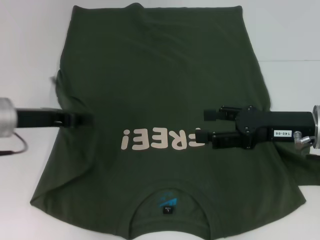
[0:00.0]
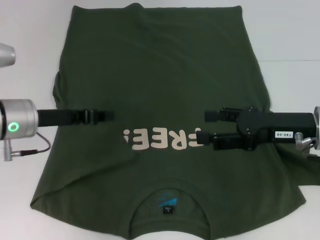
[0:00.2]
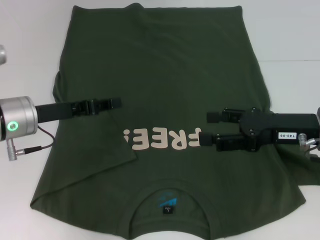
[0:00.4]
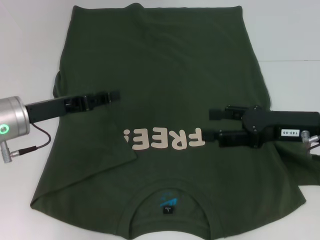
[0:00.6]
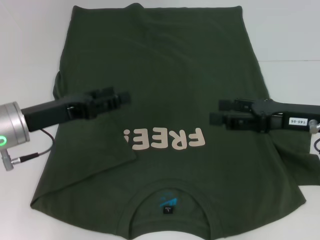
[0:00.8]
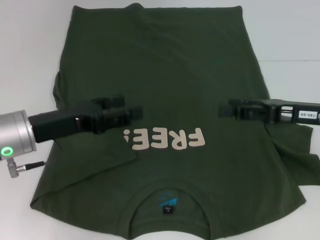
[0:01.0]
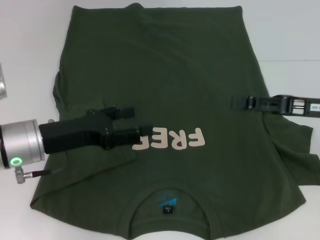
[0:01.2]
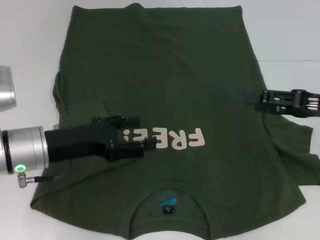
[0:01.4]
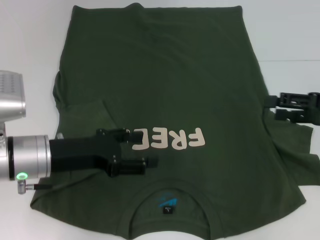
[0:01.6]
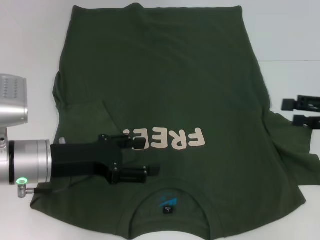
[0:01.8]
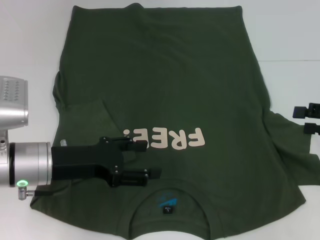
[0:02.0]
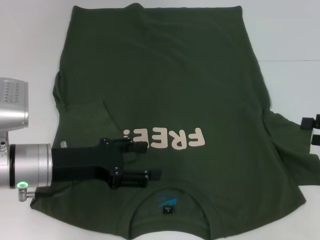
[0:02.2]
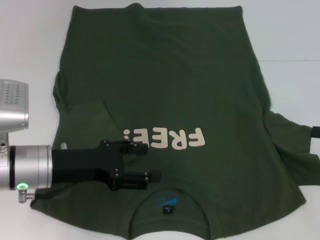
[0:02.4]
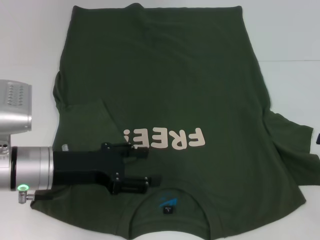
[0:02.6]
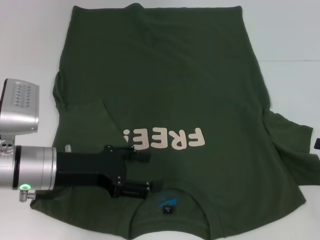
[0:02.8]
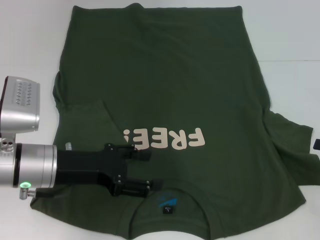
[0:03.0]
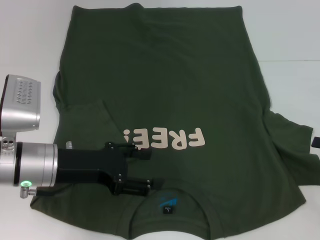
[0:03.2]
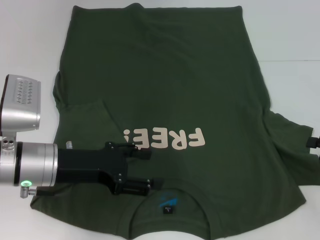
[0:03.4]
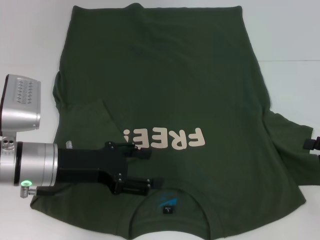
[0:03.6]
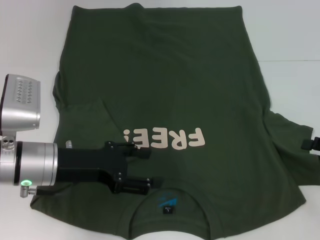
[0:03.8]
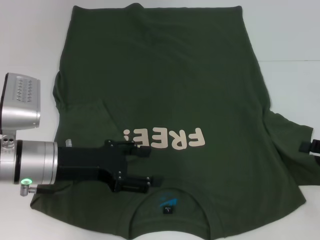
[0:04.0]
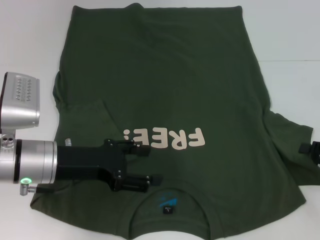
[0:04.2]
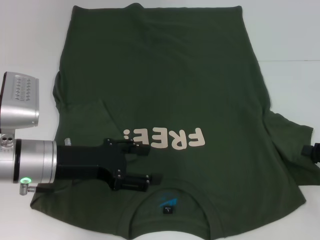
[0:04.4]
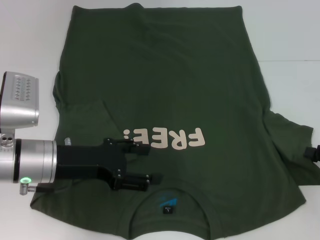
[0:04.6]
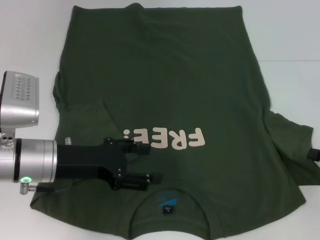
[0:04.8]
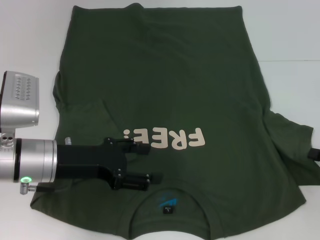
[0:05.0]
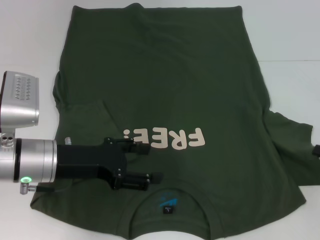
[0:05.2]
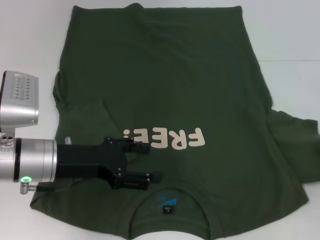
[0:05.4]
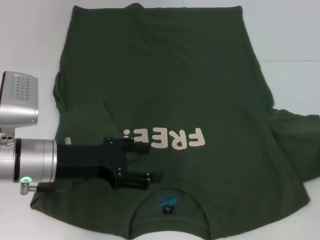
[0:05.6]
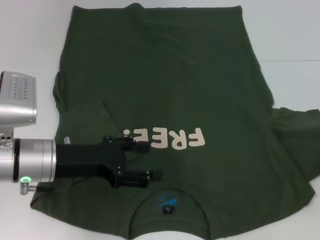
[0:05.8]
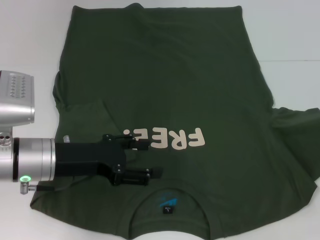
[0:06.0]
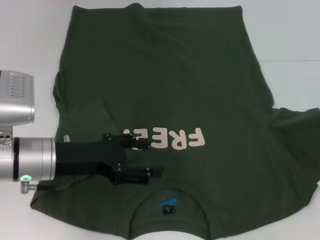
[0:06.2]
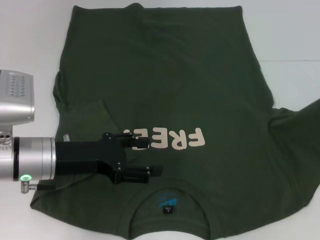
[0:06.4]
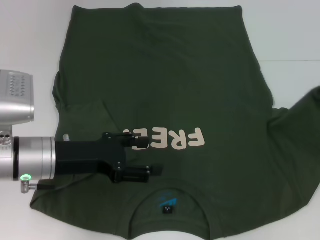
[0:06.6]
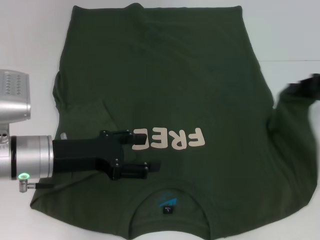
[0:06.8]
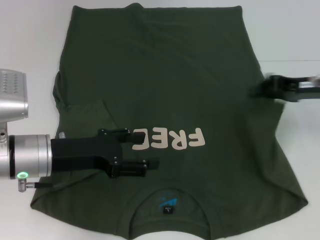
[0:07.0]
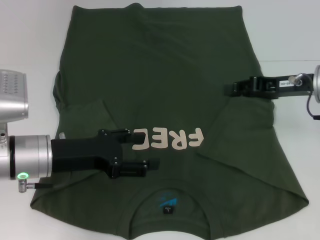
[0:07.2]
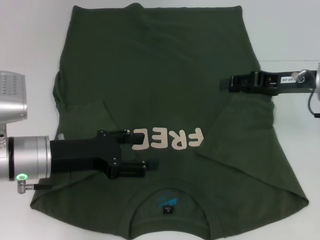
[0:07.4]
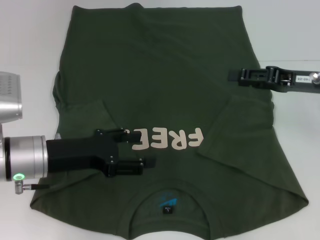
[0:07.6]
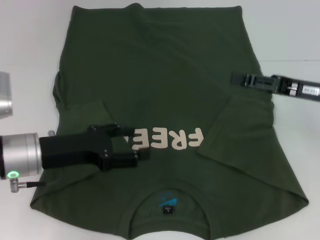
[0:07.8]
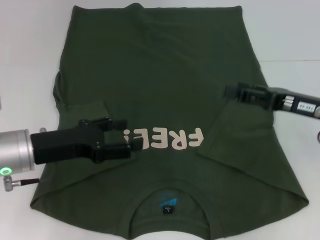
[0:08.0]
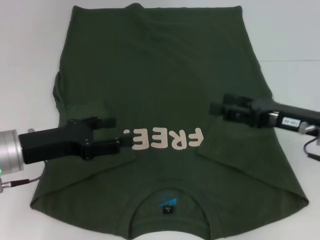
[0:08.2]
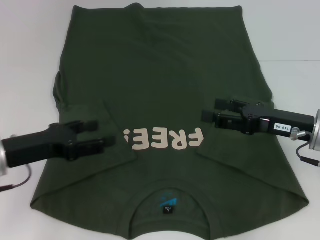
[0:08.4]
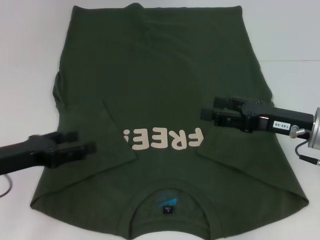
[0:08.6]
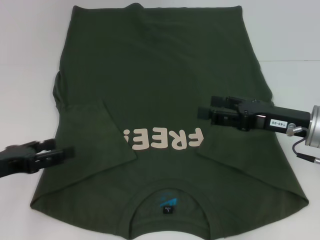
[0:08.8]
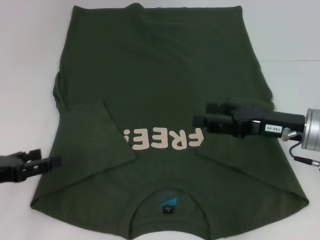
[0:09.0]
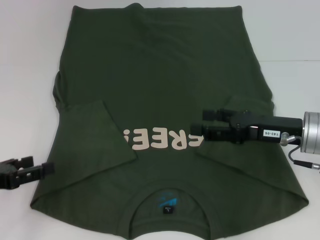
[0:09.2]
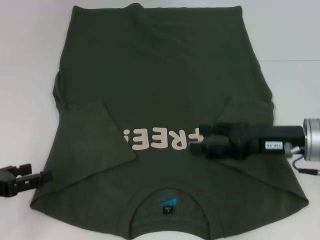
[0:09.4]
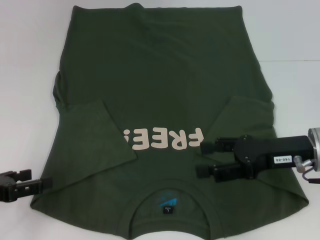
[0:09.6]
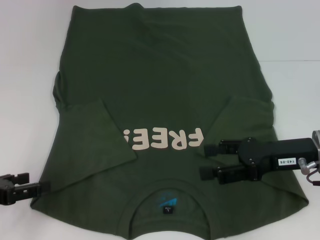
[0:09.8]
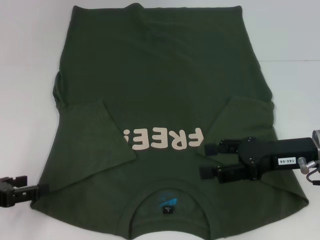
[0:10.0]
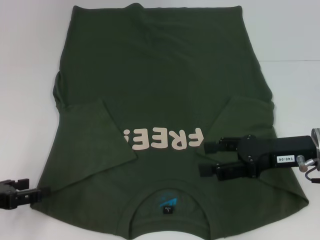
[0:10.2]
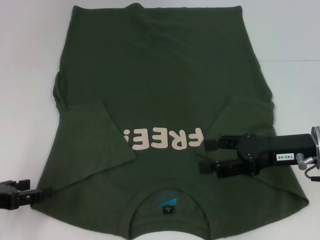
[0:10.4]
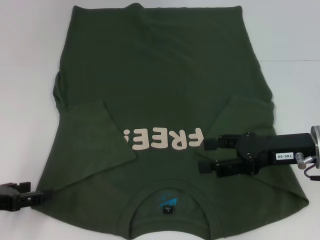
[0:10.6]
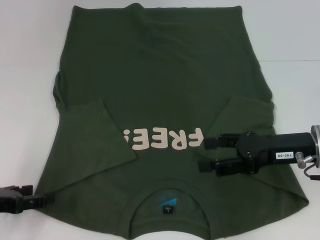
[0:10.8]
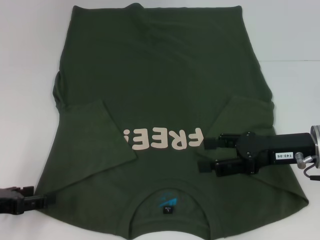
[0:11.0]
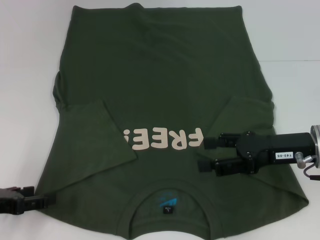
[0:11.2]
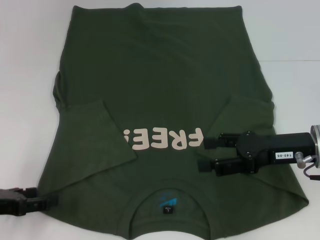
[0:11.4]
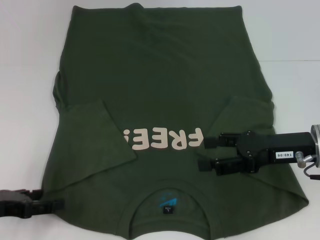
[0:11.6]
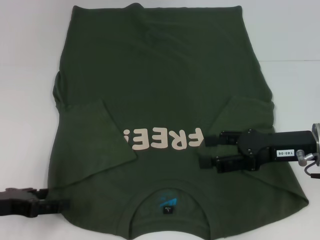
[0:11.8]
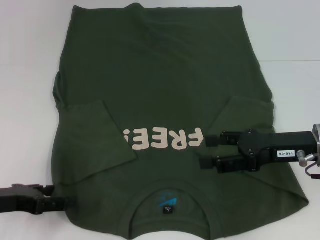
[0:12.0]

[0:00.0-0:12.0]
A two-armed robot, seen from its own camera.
Step, 0:00.4 to 0:07.0: Fold the bottom right sleeve with your right hand.
0:00.0 to 0:01.6: The right gripper heads to the right, covering approximately 10 cm; the left gripper shifts by about 5 cm, and opens up.
0:01.6 to 0:03.0: The right gripper goes approximately 10 cm to the right, backward and downward.
0:03.0 to 0:04.4: The right gripper closes its fingers.
0:04.4 to 0:06.0: The right gripper ends up approximately 5 cm from where it was, and closes up.
0:06.0 to 0:07.6: The right gripper goes approximately 15 cm to the left and forward, and opens.
0:07.6 to 0:09.0: The right gripper changes place by about 10 cm, and opens. Meanwhile the left gripper is displaced to the left and backward by roughly 15 cm.
0:09.0 to 0:12.0: The grippers stay close to where they were, moving slightly.

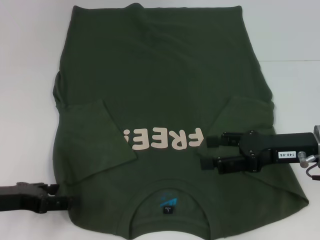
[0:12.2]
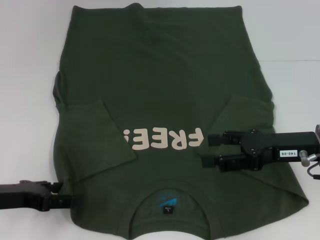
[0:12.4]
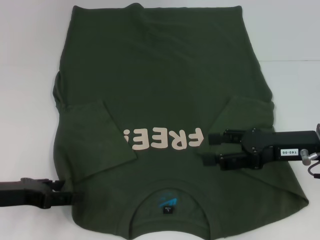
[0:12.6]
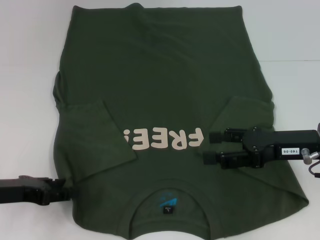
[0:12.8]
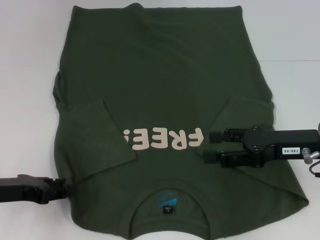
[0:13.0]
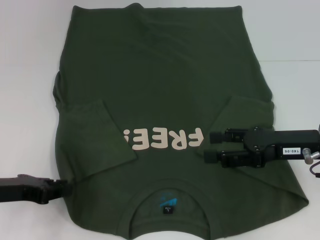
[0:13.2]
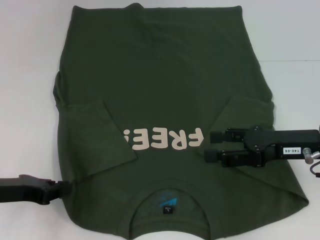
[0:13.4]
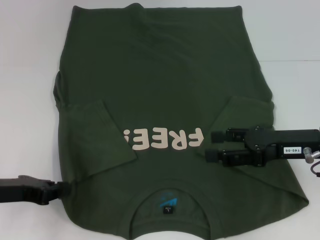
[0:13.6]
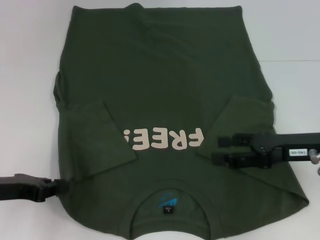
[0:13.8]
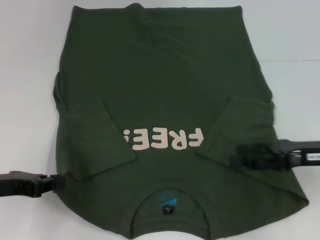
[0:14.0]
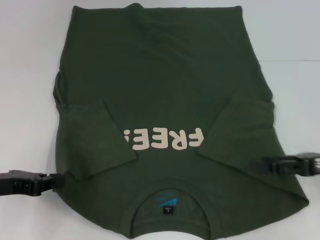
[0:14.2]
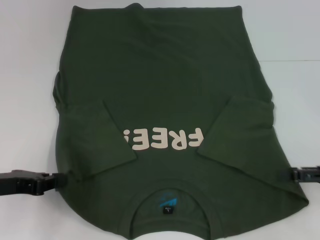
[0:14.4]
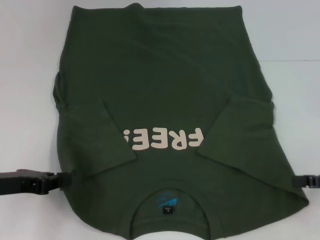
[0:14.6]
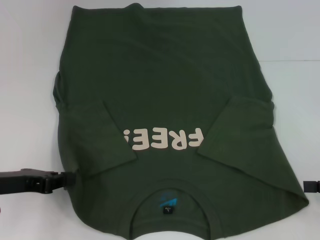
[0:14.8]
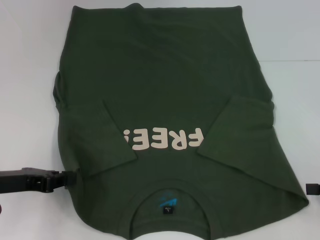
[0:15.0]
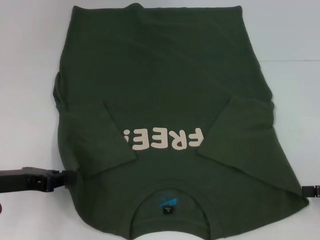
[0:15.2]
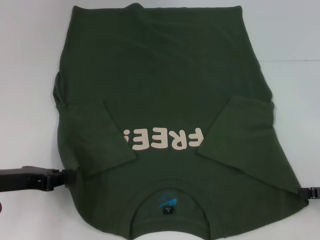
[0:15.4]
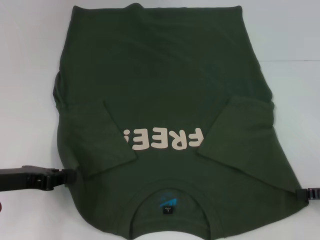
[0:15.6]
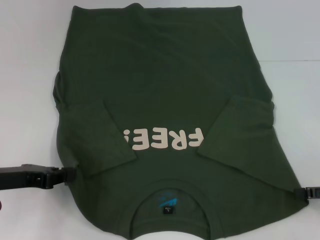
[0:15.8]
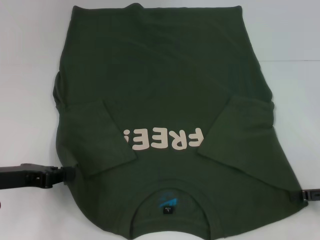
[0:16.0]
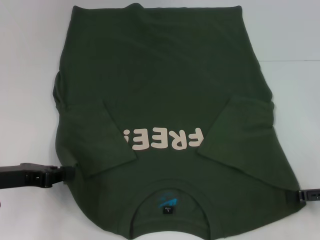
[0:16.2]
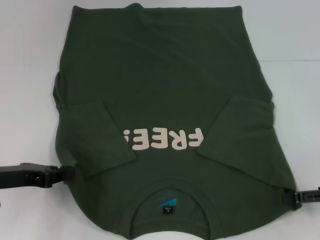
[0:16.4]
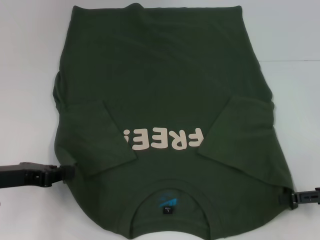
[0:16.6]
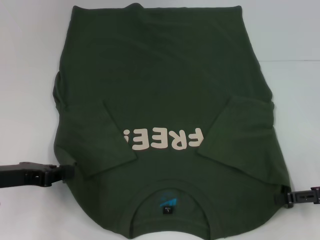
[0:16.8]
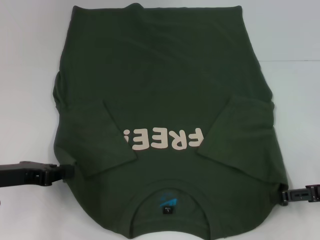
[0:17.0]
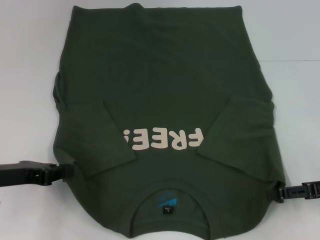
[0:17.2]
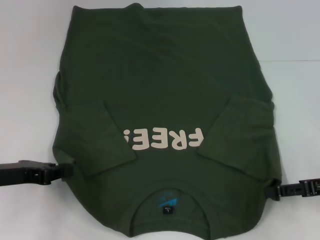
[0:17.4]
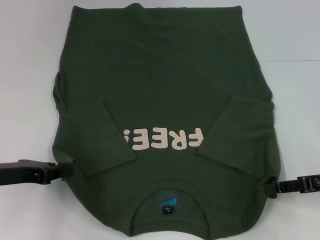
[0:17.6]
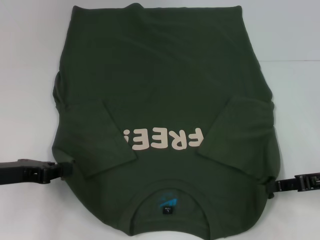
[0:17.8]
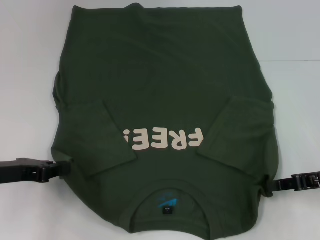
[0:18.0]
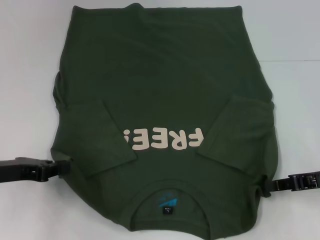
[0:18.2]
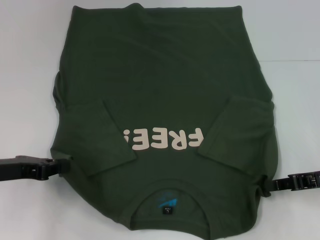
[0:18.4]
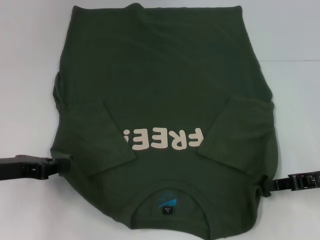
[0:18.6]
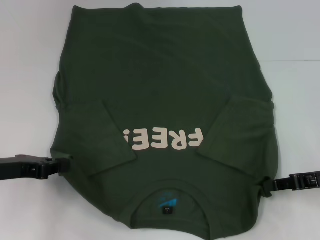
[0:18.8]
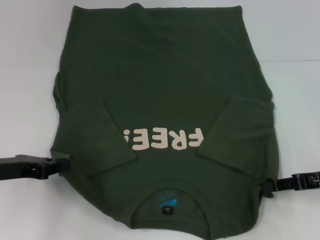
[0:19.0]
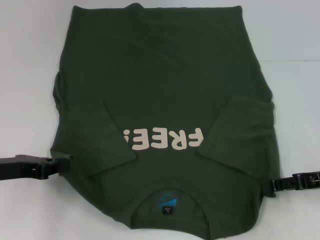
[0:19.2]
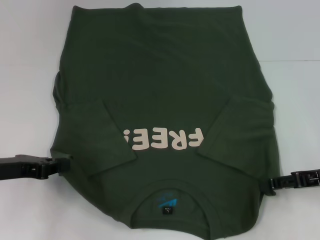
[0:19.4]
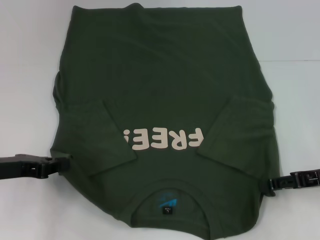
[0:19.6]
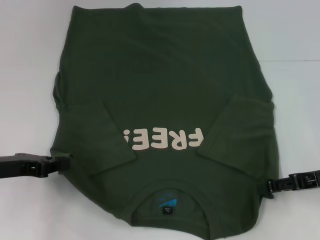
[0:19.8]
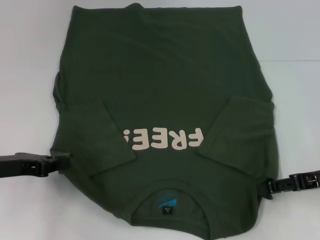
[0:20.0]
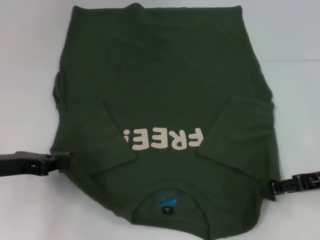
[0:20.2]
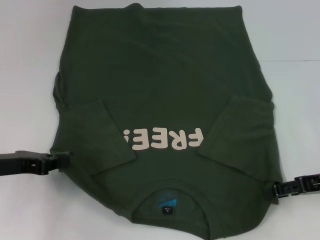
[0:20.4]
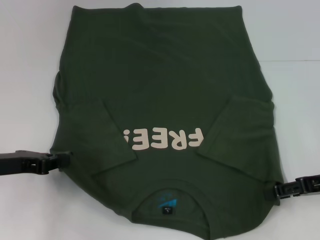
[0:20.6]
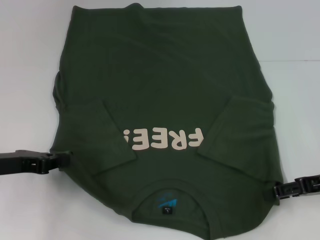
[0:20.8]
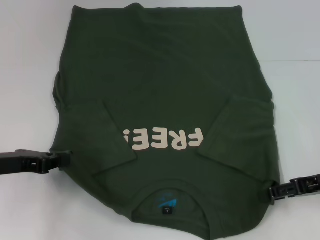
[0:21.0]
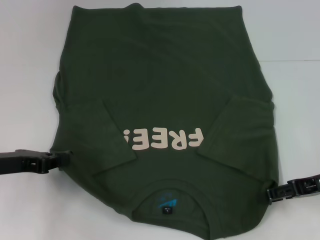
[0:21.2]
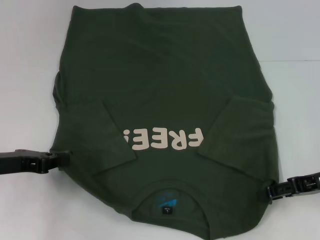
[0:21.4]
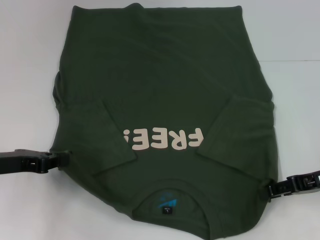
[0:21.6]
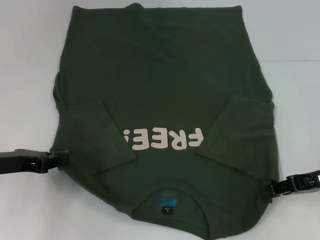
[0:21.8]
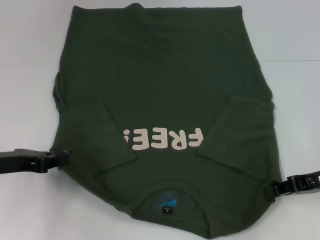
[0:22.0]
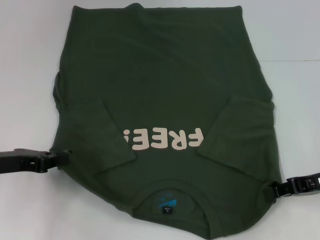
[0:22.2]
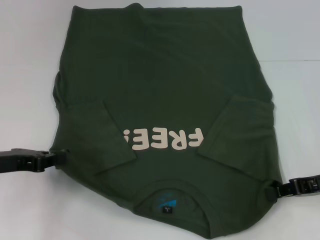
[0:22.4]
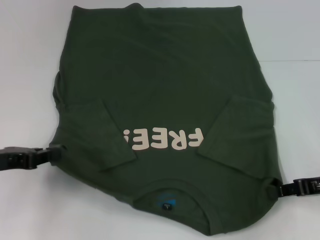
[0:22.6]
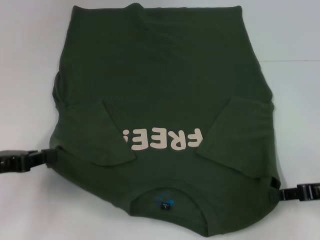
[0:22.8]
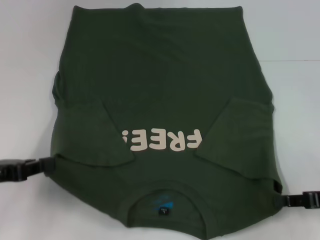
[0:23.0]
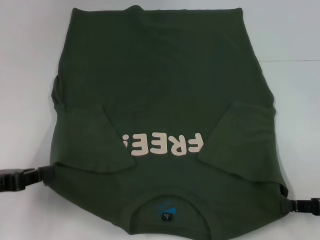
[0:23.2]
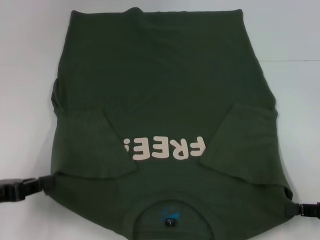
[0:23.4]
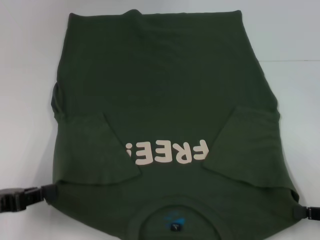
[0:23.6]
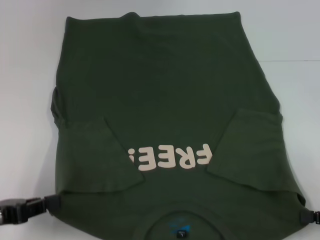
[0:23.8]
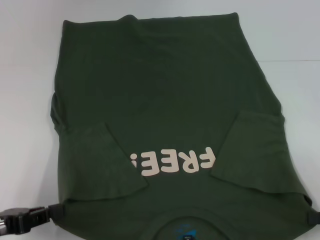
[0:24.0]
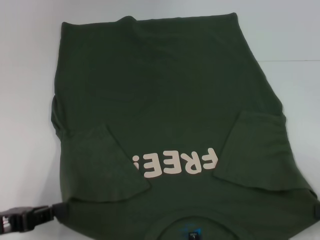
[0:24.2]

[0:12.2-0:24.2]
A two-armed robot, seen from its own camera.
Step, 0:14.0 to 0:22.6: Grab the bottom right corner with your right hand.
0:12.2 to 0:13.8: The left gripper closes its fingers.
0:13.8 to 0:15.2: The right gripper heads to the right and backward, covering approximately 15 cm.
0:15.2 to 0:16.6: The grippers stay close to where they were, moving slightly.
0:16.6 to 0:18.2: The right gripper closes.
0:18.2 to 0:19.8: The right gripper opens up.
0:19.8 to 0:21.2: There are only small adjustments of the grippers.
0:21.2 to 0:22.6: The right gripper closes up.
0:22.6 to 0:24.2: The right gripper travels backward and to the right by roughly 10 cm, while the left gripper moves backward, about 10 cm.
